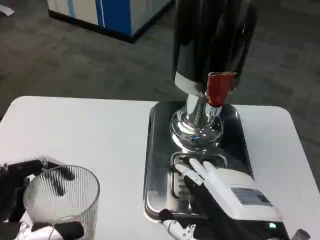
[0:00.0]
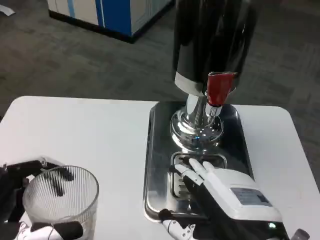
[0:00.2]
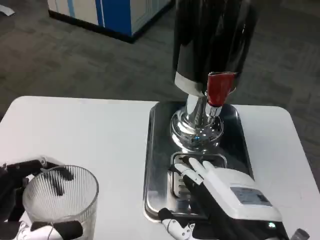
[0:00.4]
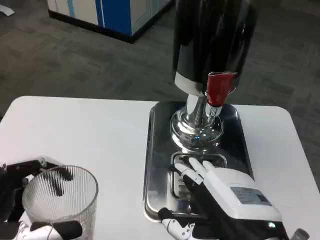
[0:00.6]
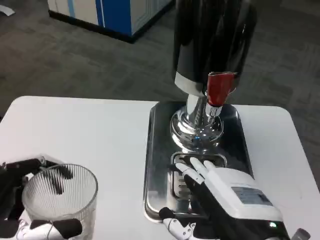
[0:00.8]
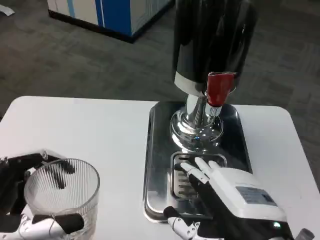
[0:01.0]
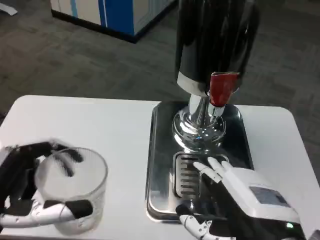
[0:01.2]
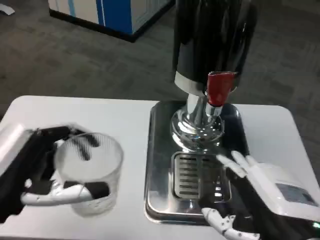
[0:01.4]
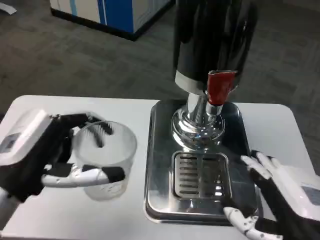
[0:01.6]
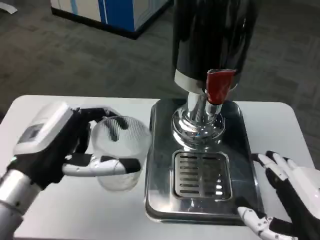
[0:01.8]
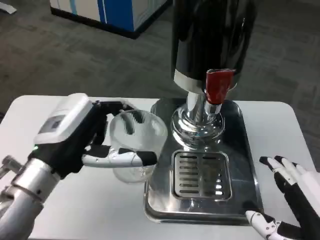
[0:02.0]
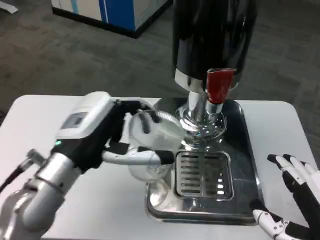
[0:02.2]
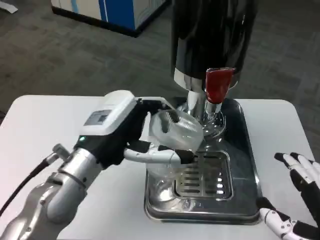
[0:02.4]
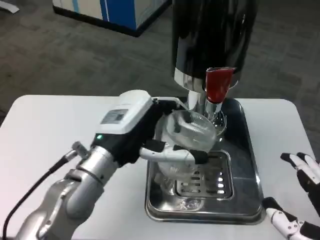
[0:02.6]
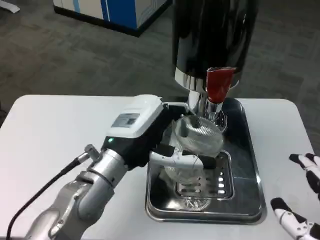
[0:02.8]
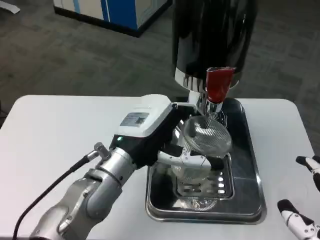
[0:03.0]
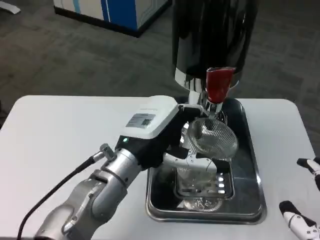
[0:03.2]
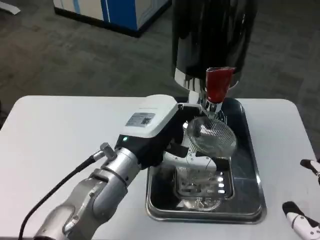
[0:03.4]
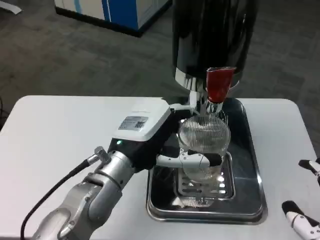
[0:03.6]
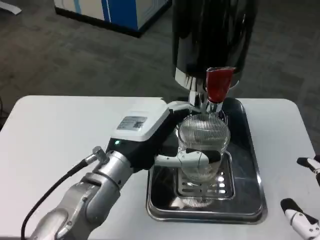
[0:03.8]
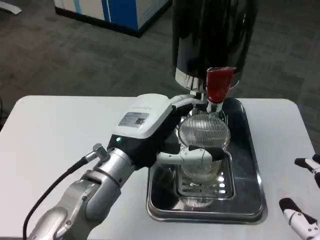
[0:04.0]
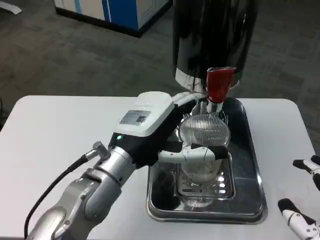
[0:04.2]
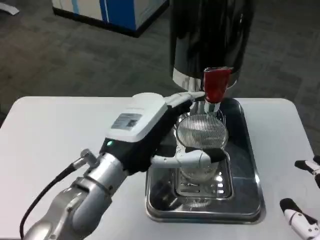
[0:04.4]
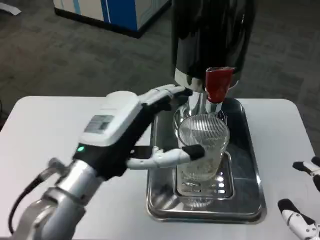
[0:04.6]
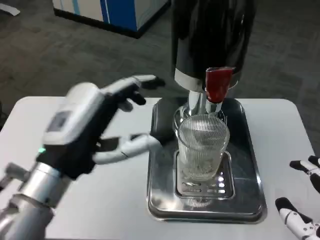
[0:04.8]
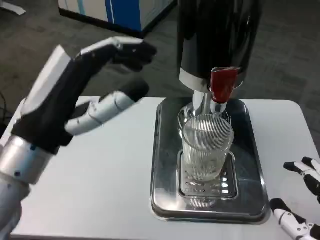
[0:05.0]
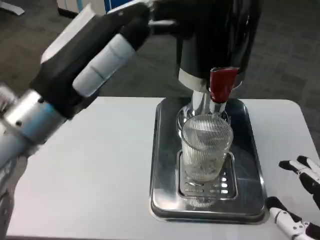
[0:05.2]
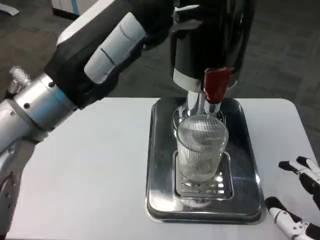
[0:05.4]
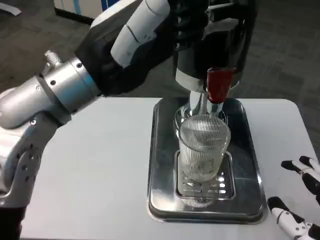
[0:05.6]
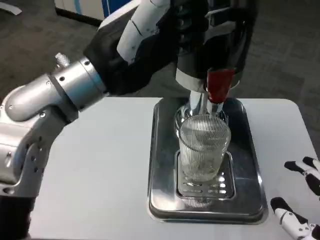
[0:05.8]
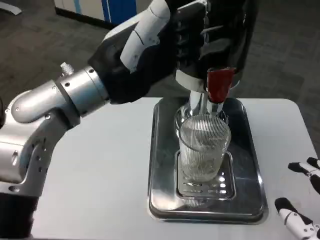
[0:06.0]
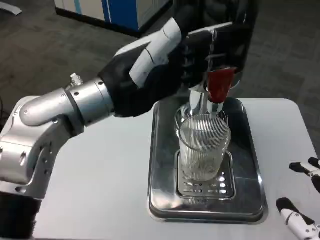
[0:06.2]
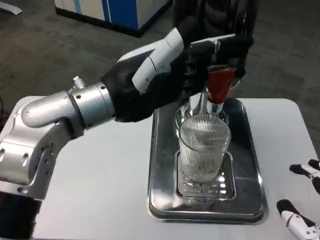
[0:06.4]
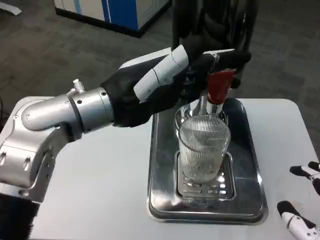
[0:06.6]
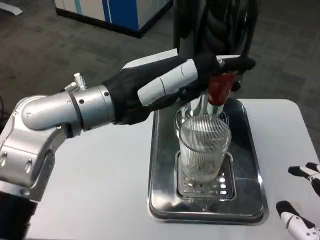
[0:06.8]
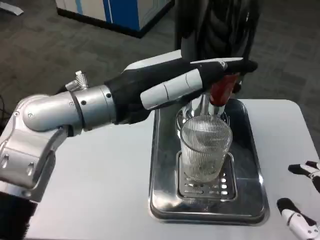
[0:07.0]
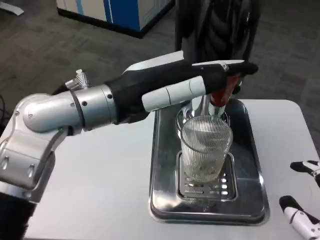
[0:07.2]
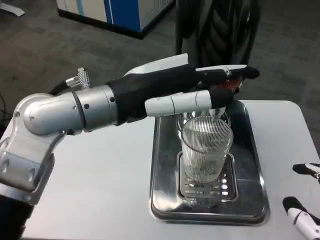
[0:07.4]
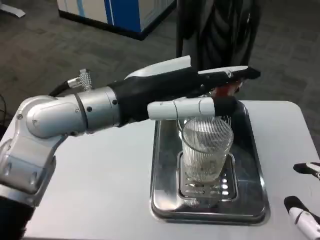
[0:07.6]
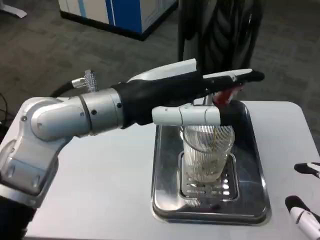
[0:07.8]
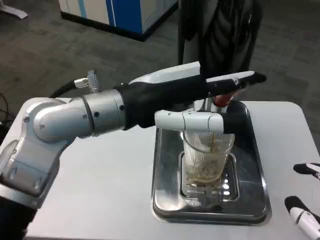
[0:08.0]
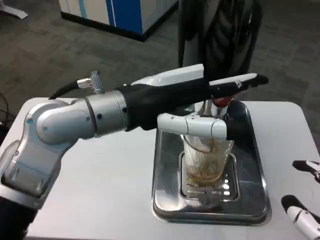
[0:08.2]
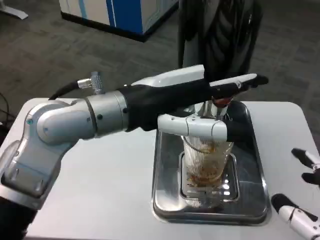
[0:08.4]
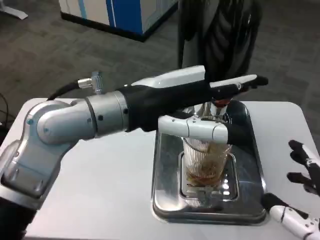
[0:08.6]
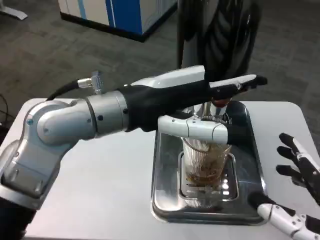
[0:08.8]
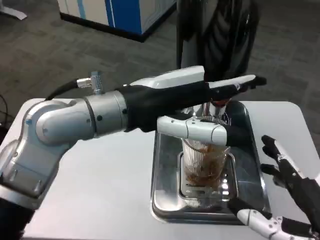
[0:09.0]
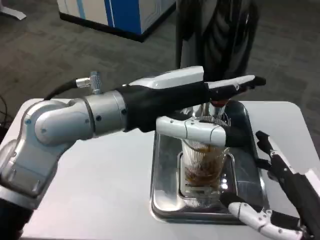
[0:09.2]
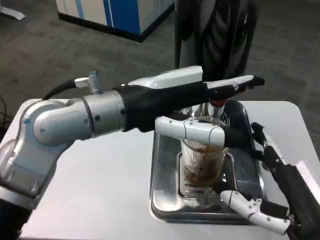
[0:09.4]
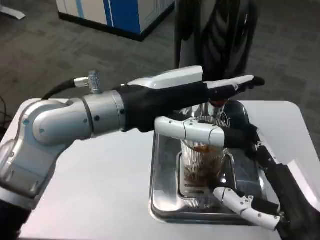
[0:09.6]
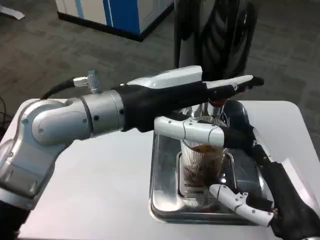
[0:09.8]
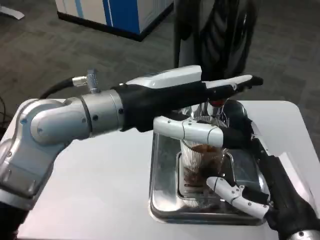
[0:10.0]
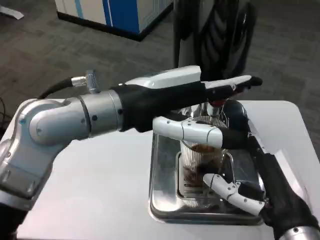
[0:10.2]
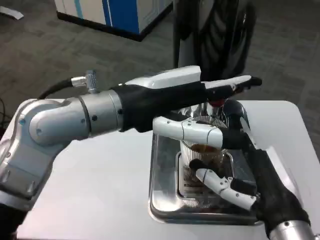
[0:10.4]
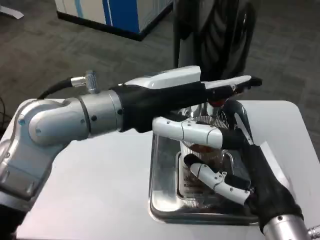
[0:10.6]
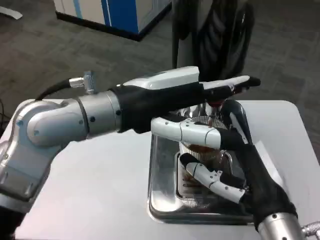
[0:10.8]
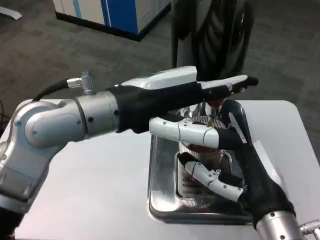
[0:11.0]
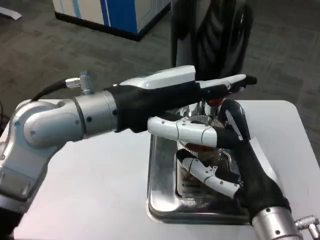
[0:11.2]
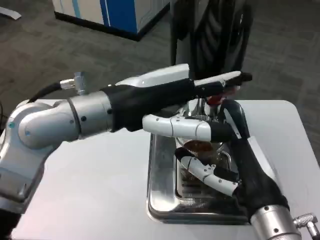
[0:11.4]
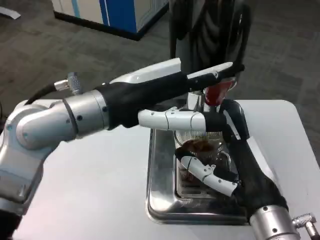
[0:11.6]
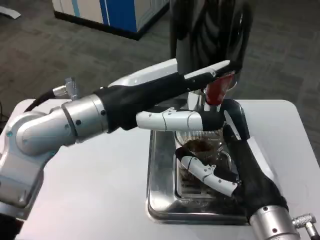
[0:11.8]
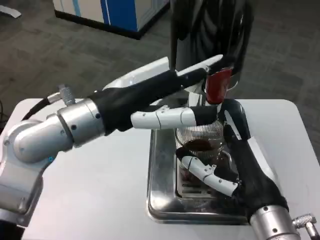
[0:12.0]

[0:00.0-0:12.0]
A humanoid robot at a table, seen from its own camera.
Task of the whole recording: Grasp the cup under the faucet to collect the drink, then remove the cup.
0:00.0 to 0:01.6: The left hand moves forward, approximately 10 cm.
0:01.6 to 0:03.0: The left hand shifts roughly 15 cm to the right and forward; the right hand shifts by about 5 cm.
0:04.4 to 0:06.0: The left hand is displaced upward by some 15 cm.
0:07.6 to 0:09.0: The right hand ends up roughly 5 cm from where it was.
0:09.0 to 0:10.4: The right hand heads forward and to the left, covering about 10 cm.

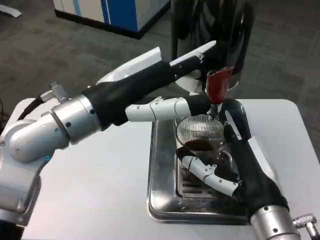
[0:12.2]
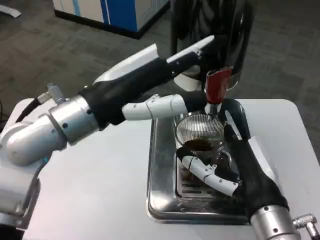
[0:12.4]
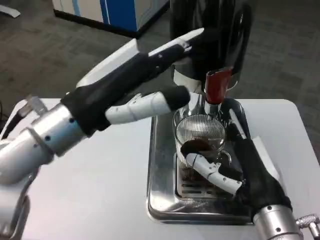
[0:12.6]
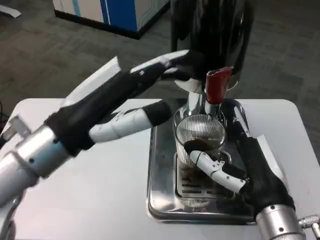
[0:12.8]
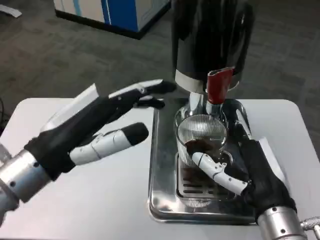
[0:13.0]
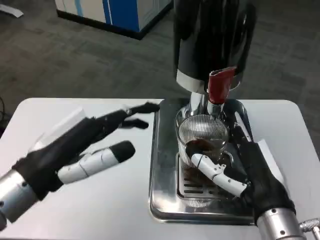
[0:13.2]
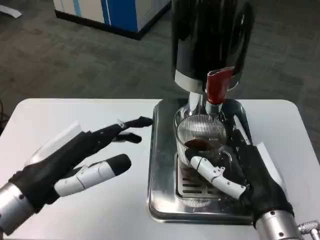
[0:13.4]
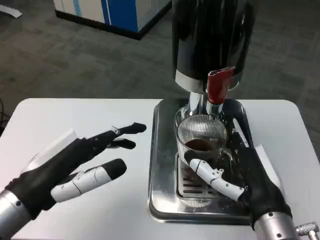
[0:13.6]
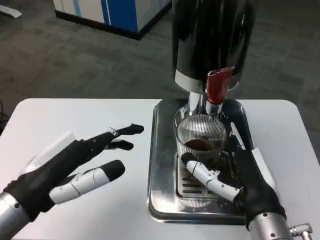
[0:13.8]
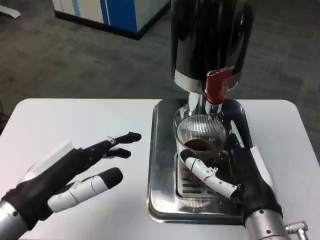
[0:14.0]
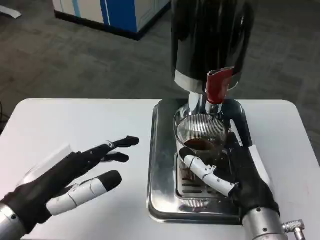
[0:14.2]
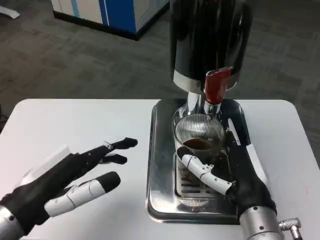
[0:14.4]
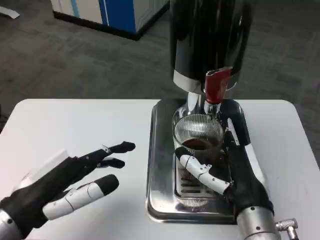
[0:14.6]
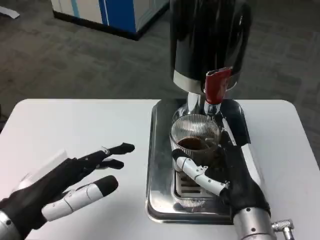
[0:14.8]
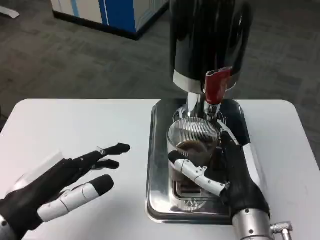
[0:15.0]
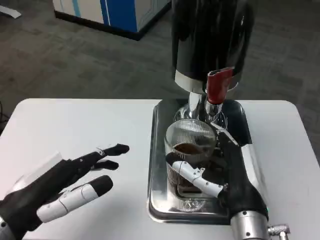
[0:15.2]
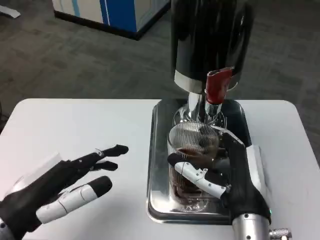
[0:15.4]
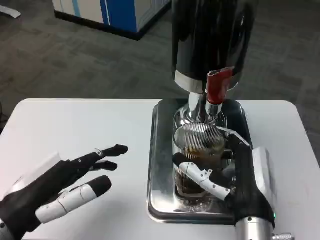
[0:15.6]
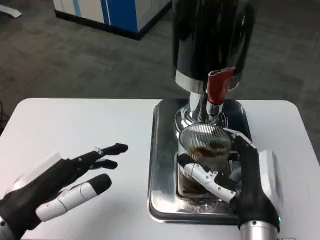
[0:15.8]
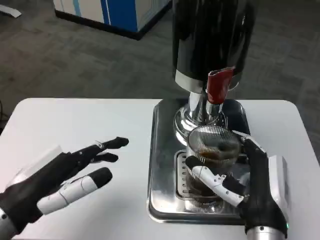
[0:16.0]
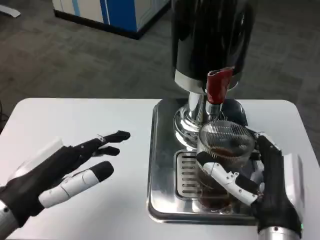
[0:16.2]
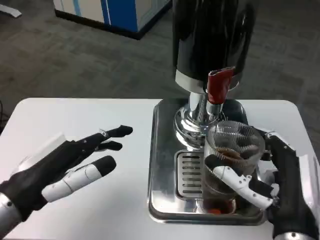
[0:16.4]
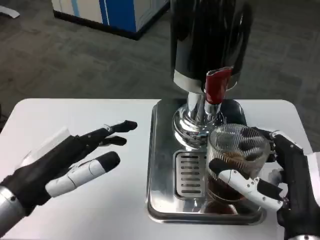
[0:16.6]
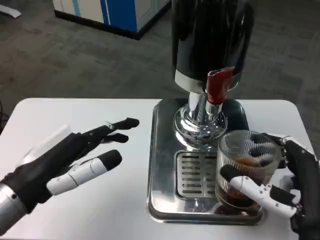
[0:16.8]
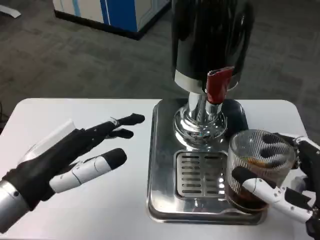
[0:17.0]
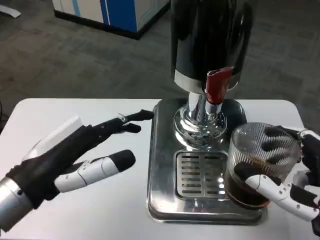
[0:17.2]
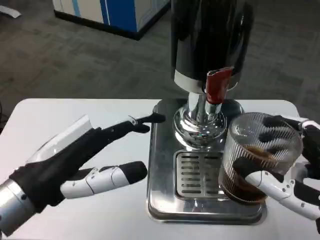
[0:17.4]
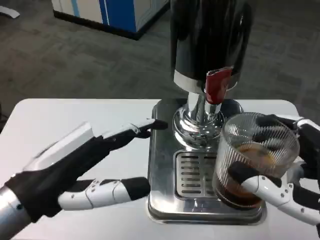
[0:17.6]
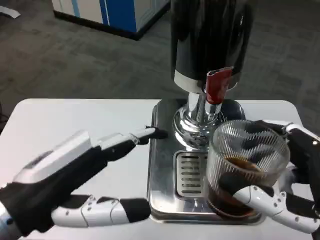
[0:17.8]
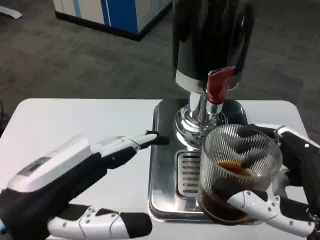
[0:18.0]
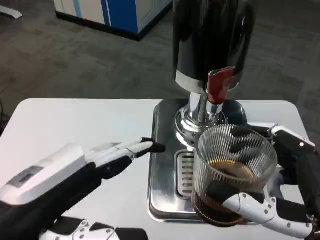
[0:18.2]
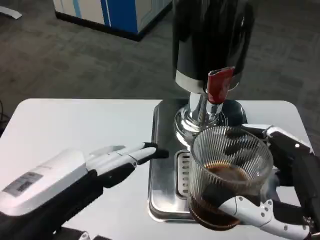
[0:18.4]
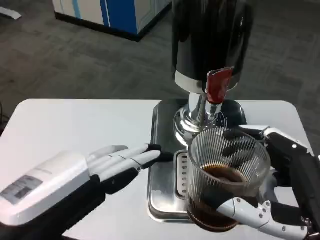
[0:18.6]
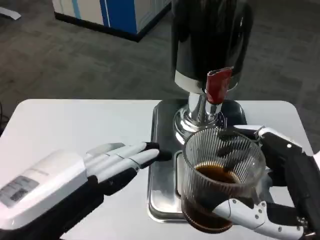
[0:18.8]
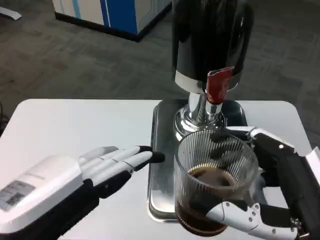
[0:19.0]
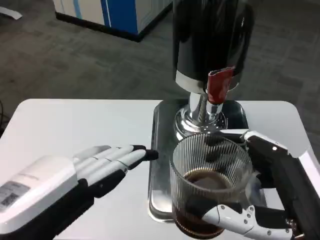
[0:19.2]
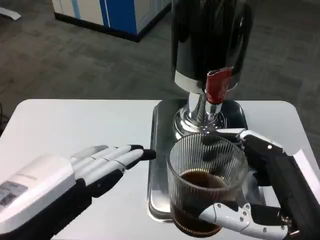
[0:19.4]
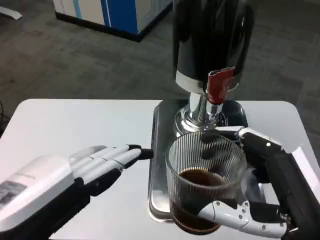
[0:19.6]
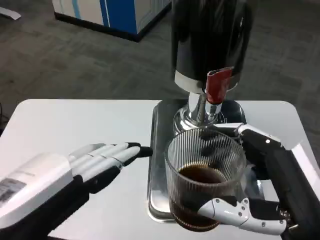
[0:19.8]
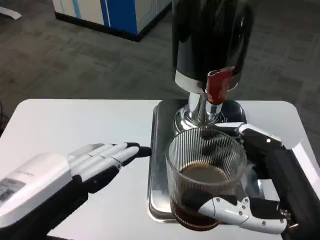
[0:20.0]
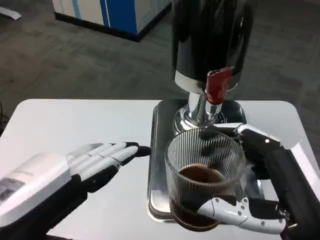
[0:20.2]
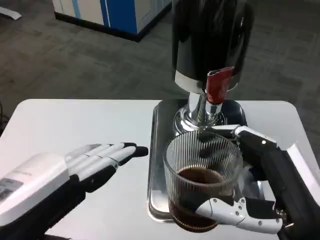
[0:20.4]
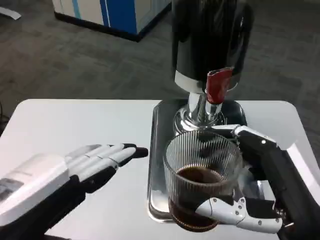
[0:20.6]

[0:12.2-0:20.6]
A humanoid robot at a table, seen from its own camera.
Task of the whole recording: Grasp the cup under the faucet to collect the drink, then remove the cup.
0:12.2 to 0:13.6: The left hand shifts roughly 15 cm downward, to the left and backward.
0:15.0 to 0:16.4: The right hand changes place by roughly 5 cm.
0:16.4 to 0:17.8: The right hand goes some 5 cm backward. Meanwhile the left hand moves roughly 5 cm.
0:17.8 to 0:19.2: The left hand is displaced backward by about 5 cm.
0:19.2 to 0:20.6: The hands make only small movements.

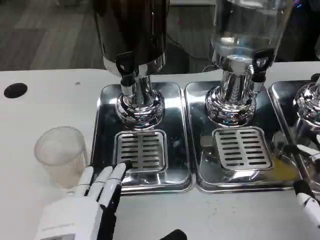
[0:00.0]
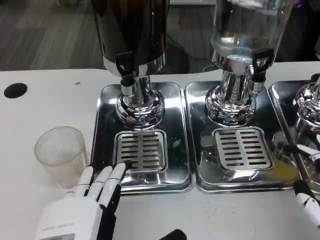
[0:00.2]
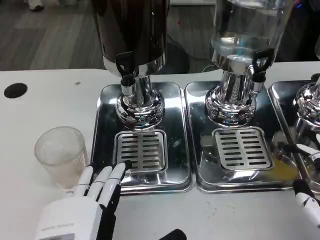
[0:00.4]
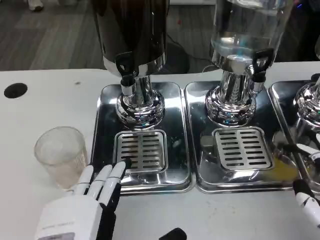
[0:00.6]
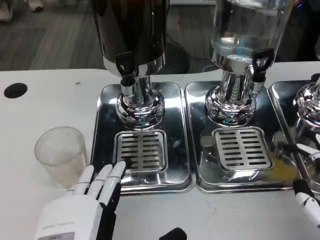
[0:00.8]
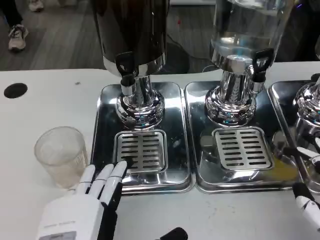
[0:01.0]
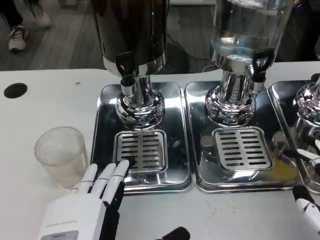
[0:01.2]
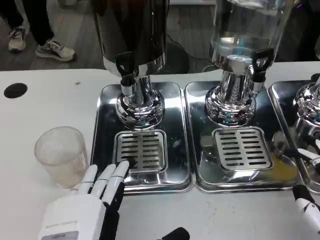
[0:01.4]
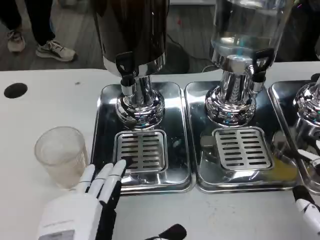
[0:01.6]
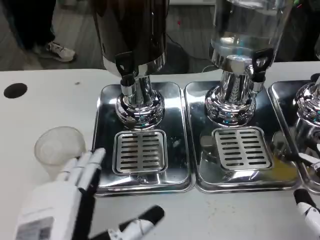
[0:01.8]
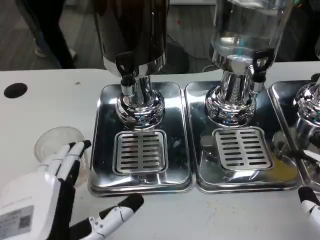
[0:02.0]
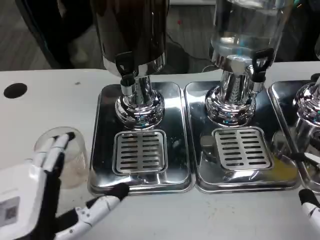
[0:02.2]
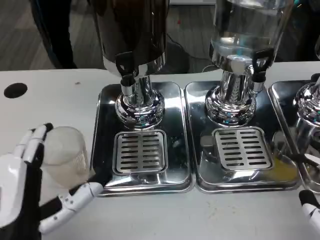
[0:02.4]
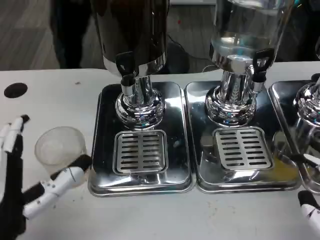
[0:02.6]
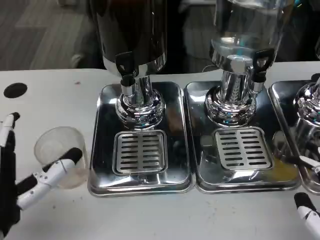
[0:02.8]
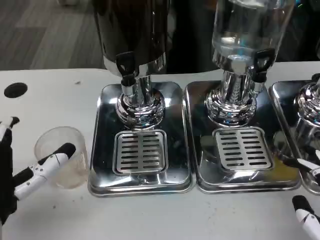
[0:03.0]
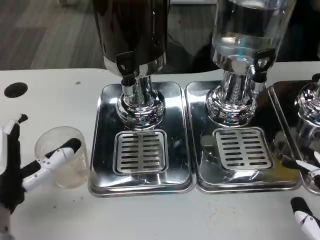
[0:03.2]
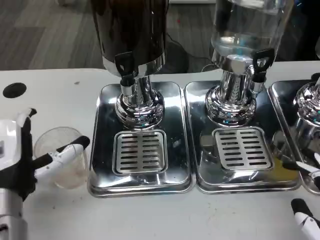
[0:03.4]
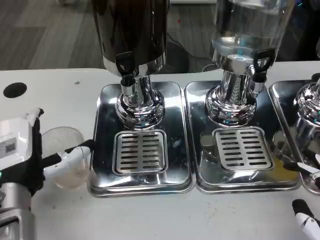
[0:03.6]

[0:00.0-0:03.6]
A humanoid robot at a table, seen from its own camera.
Task of the whole recording: Grasp the cup under the faucet to collect the drink, then remove the cup.
0:00.0 to 0:01.8: The hands stay close to where they were, moving slightly.
0:01.8 to 0:03.6: The left hand moves forward, approximately 15 cm.
